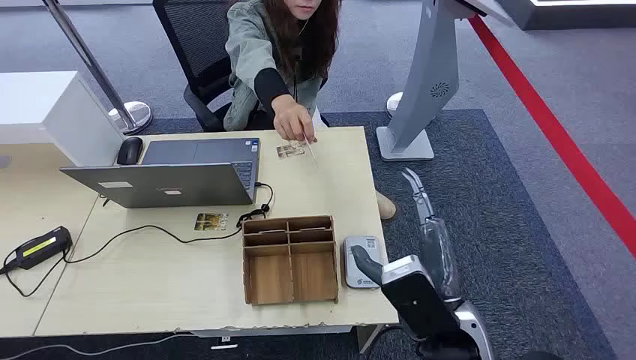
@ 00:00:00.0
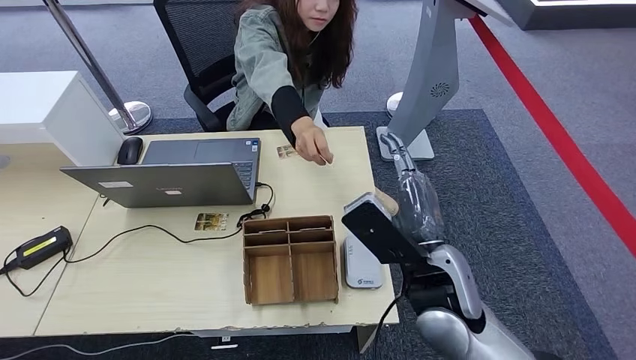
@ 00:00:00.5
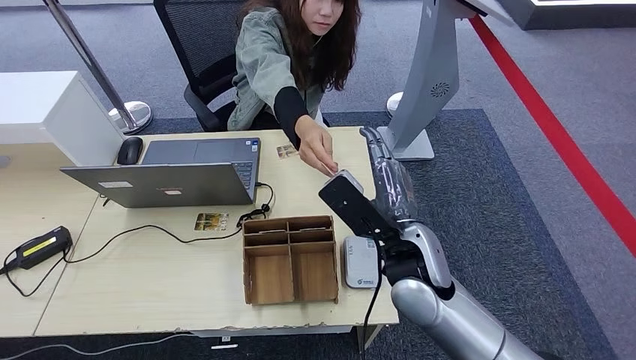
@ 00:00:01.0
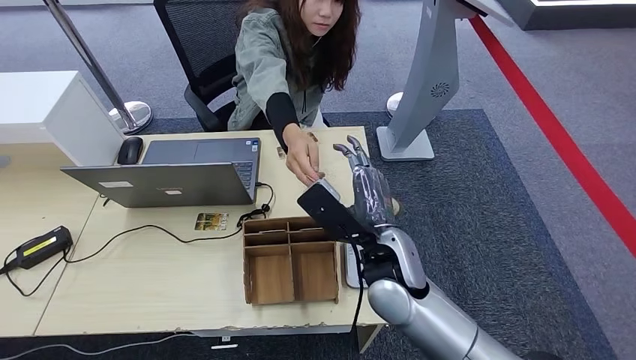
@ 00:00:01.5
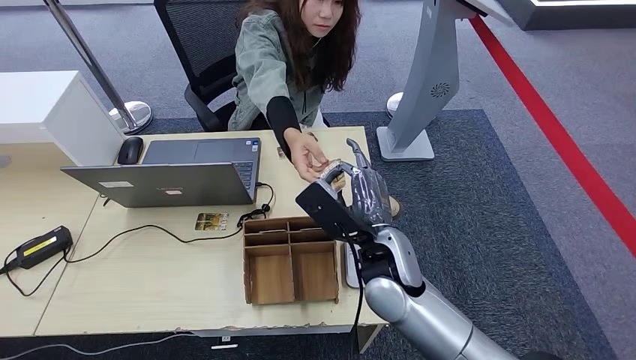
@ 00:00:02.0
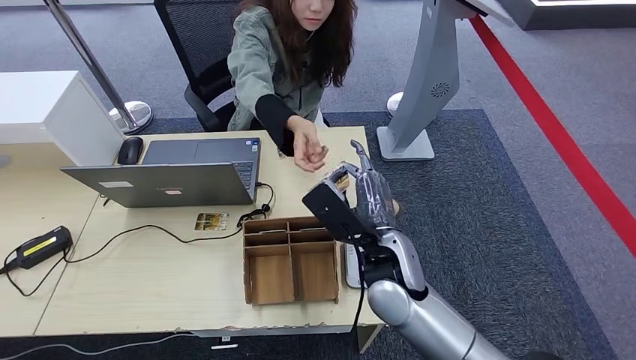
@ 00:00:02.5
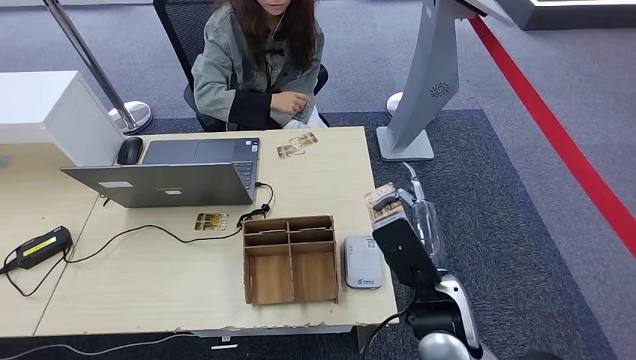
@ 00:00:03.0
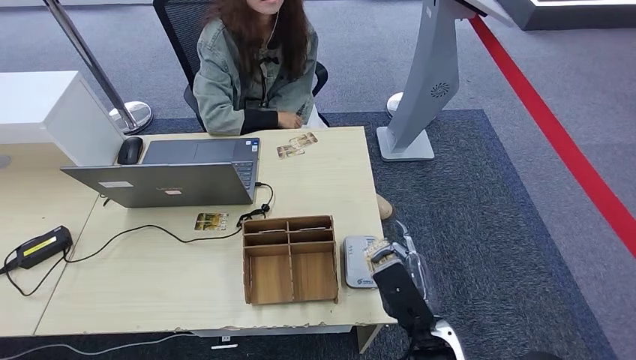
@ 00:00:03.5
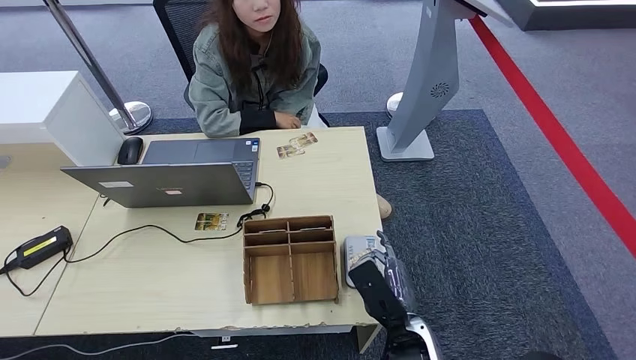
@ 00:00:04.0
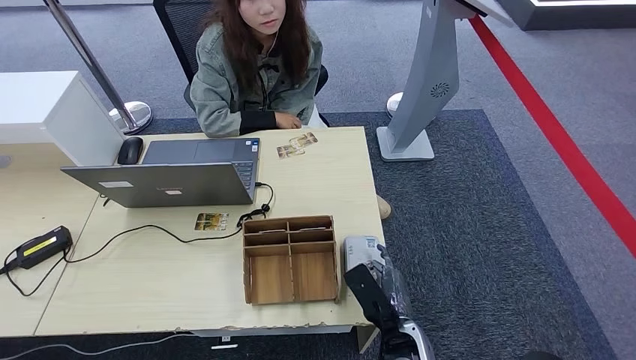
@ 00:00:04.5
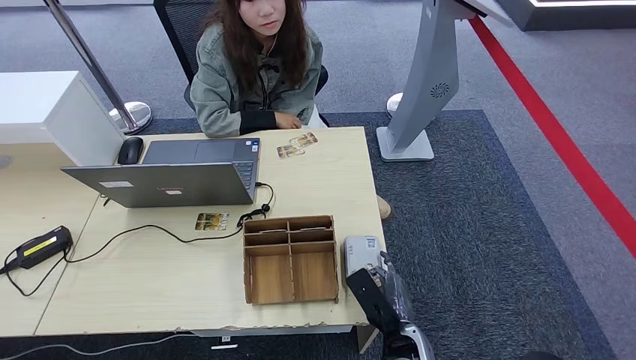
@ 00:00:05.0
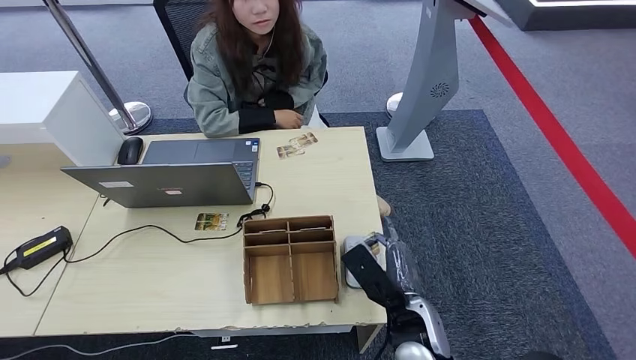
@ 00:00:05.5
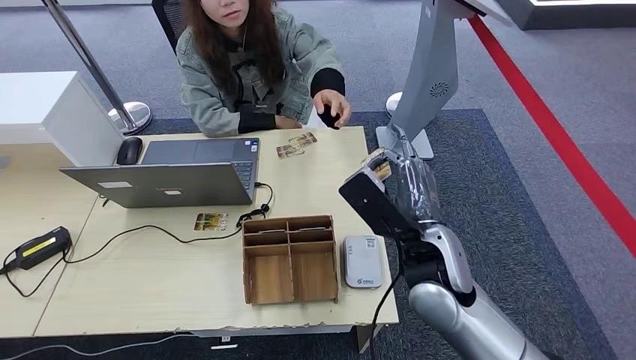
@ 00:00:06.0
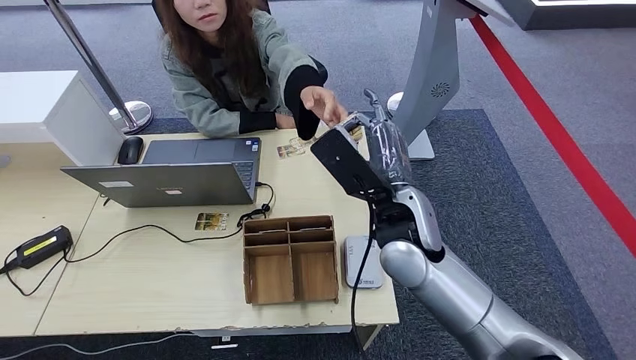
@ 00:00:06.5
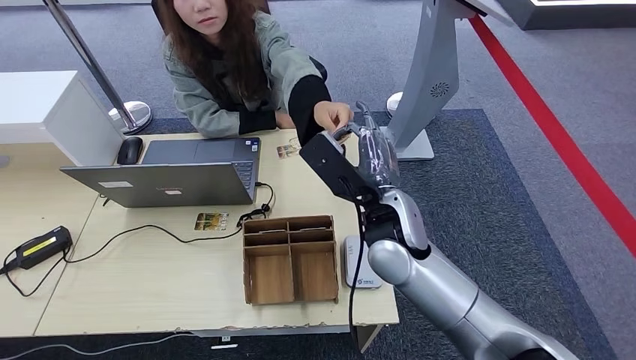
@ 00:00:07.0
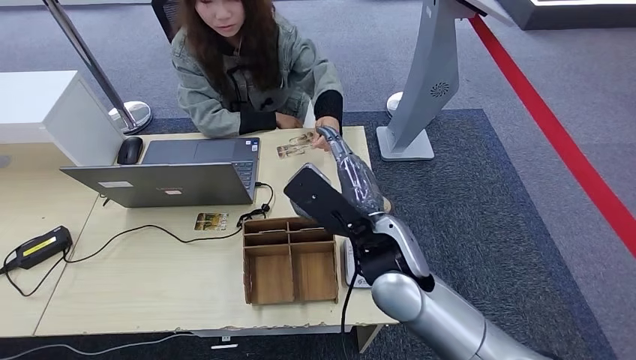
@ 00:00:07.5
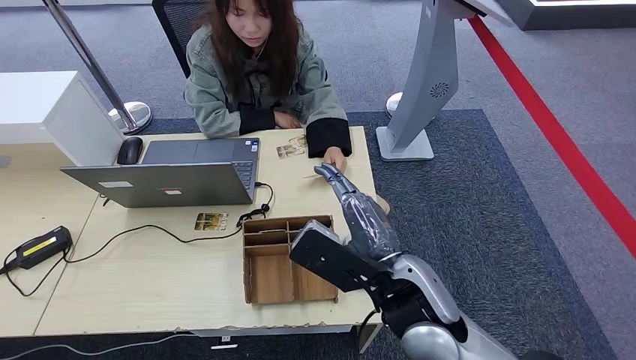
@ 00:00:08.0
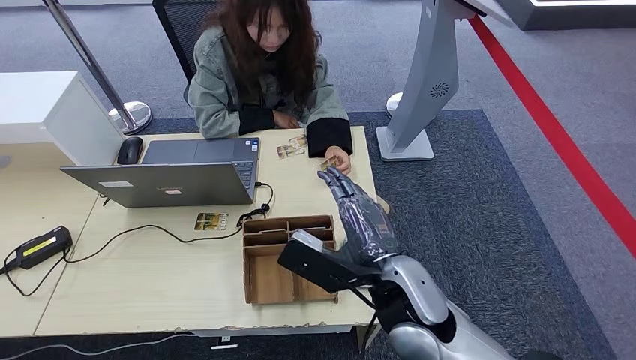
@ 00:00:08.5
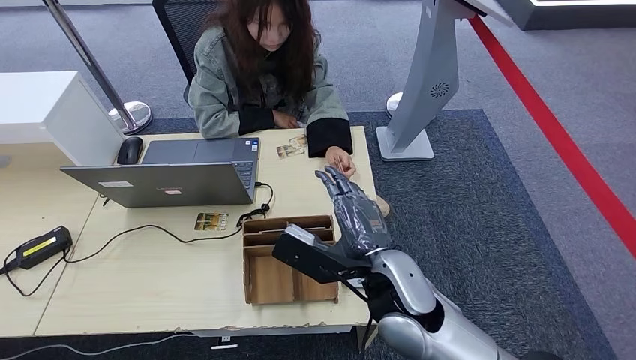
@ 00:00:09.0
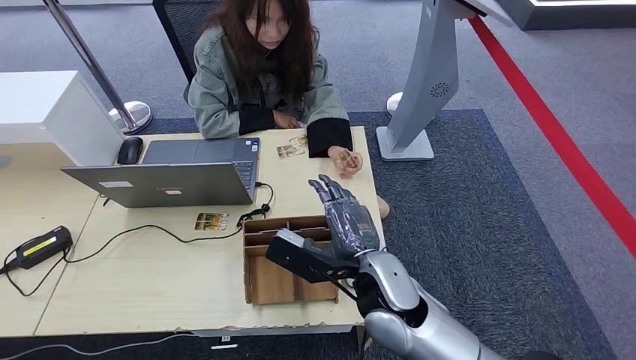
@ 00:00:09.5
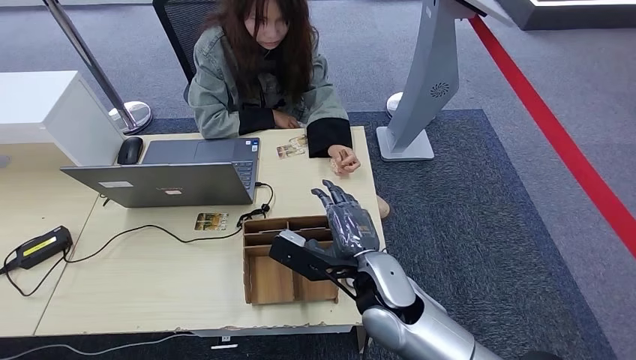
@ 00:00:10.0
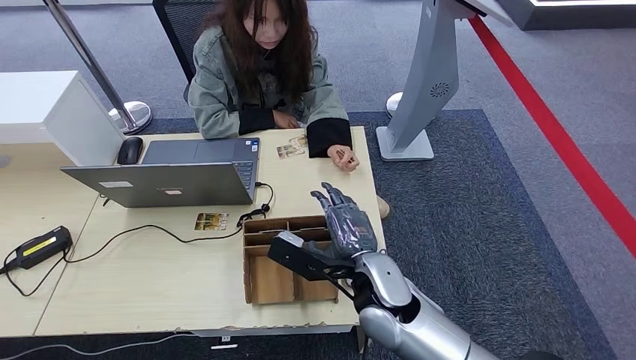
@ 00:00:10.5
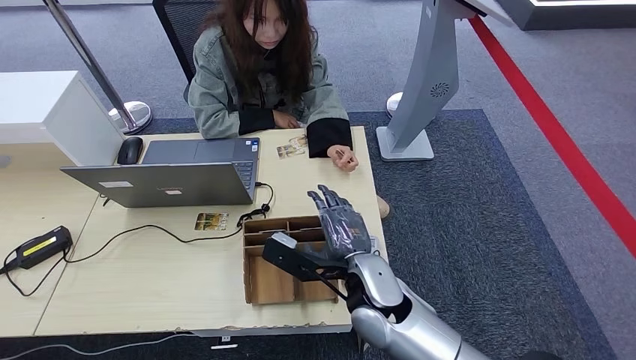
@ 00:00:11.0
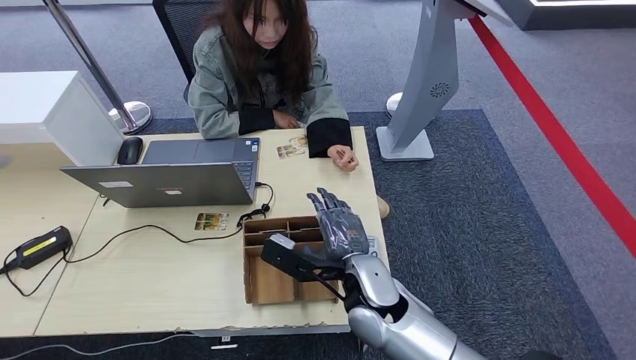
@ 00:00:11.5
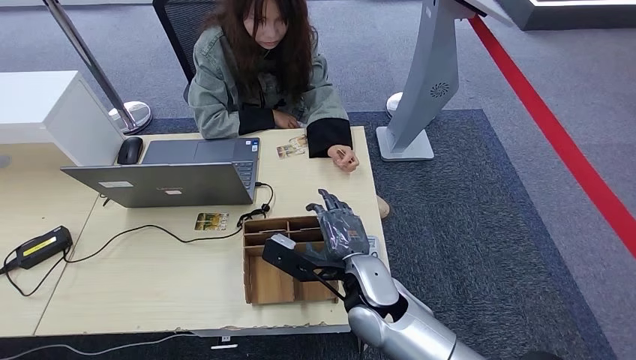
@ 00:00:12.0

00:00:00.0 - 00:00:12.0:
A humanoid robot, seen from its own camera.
Step, 00:00:00.0 - 00:00:02.0: Take the ID card from the person's hand.
Step, 00:00:02.5 - 00:00:05.5: Place the ID card on the card reader.
Step, 00:00:06.0 - 00:00:07.5: Hand the ID card to the person.
00:00:02.0 - 00:00:04.0: The right hand is displaced downward, backward and to the right by about 20 cm.
00:00:04.0 - 00:00:06.0: The right hand moves upward and forward, roughly 20 cm.
00:00:06.0 - 00:00:08.0: The right hand changes place by some 5 cm.
00:00:08.0 - 00:00:10.0: The right hand heads downward, covering about 10 cm.
00:00:10.0 - 00:00:12.0: The hands make only small movements.

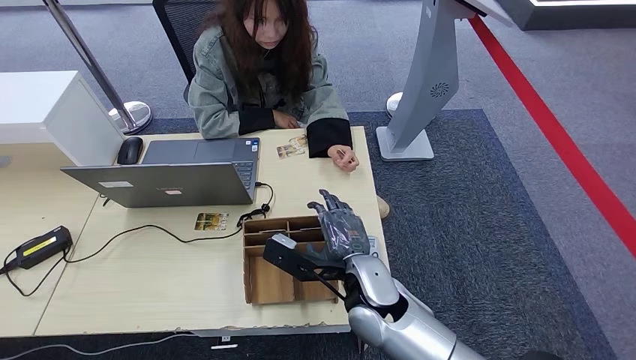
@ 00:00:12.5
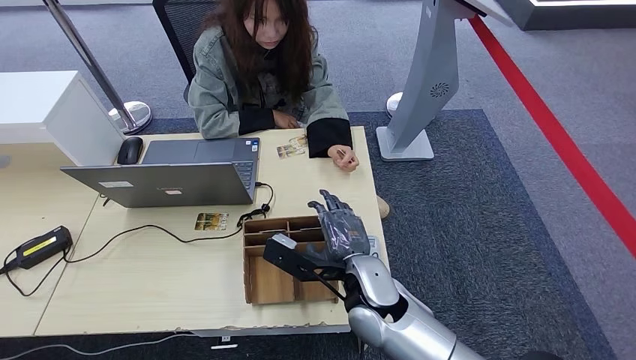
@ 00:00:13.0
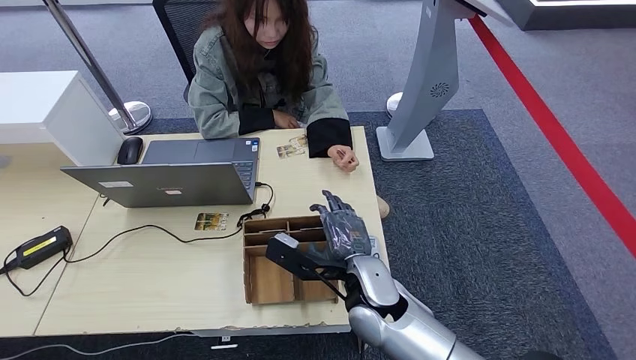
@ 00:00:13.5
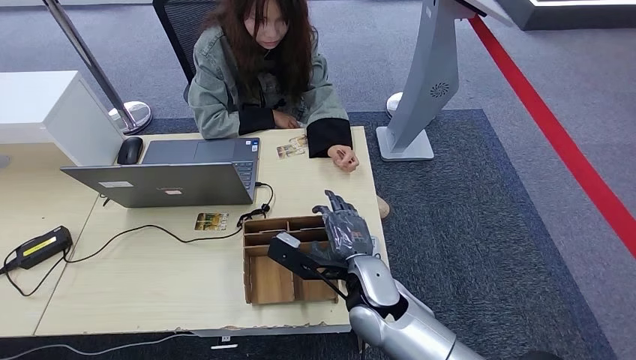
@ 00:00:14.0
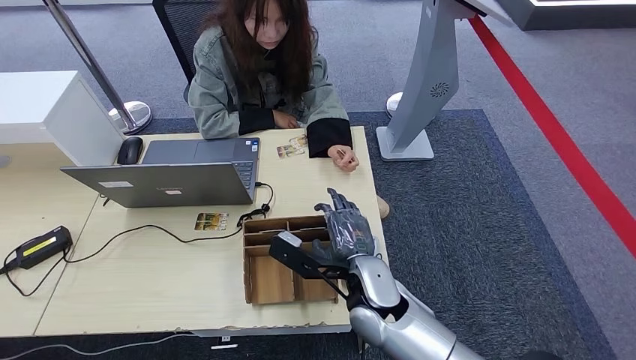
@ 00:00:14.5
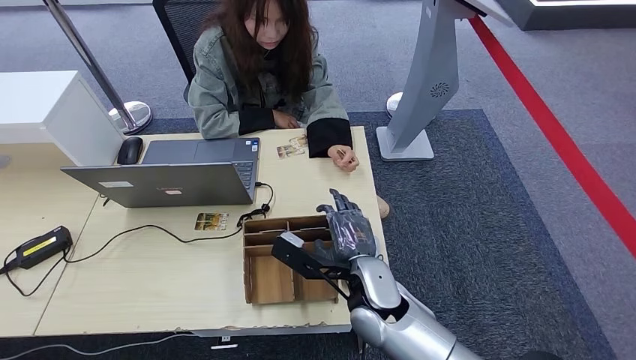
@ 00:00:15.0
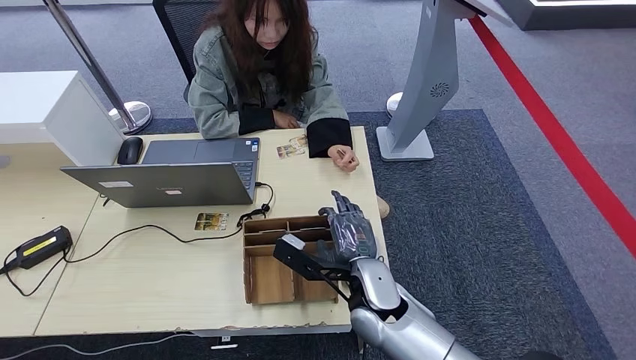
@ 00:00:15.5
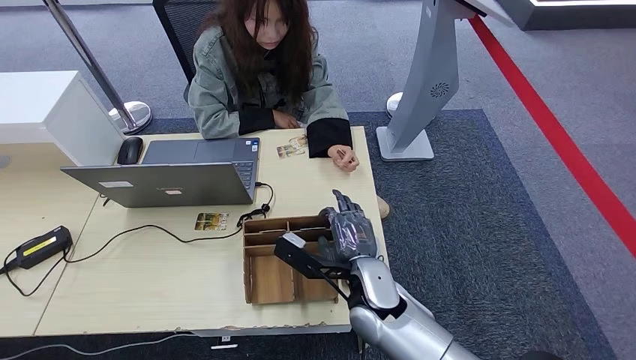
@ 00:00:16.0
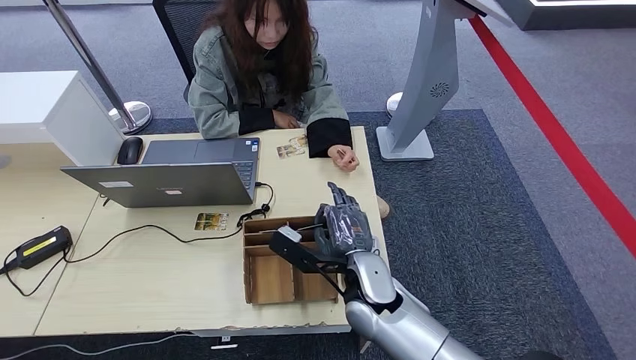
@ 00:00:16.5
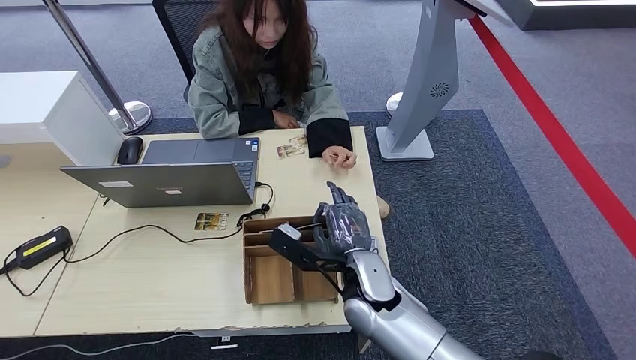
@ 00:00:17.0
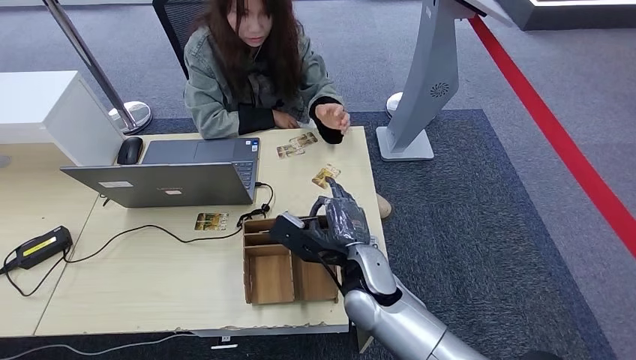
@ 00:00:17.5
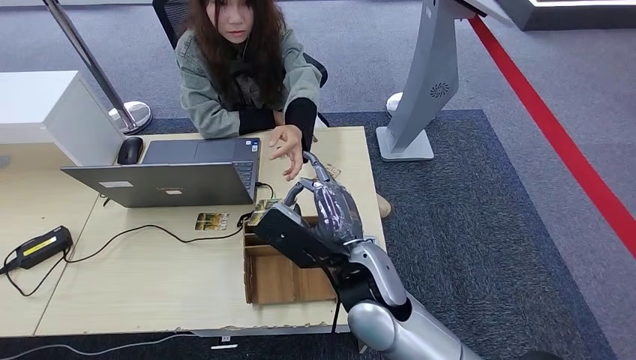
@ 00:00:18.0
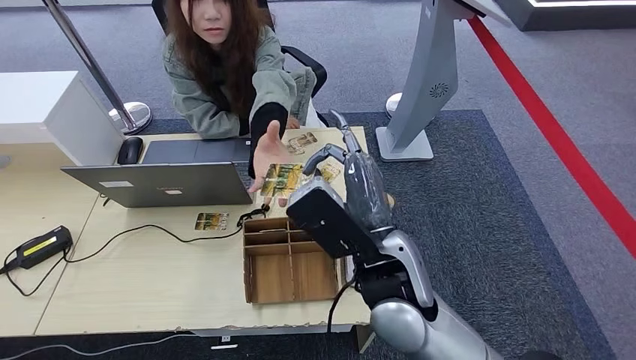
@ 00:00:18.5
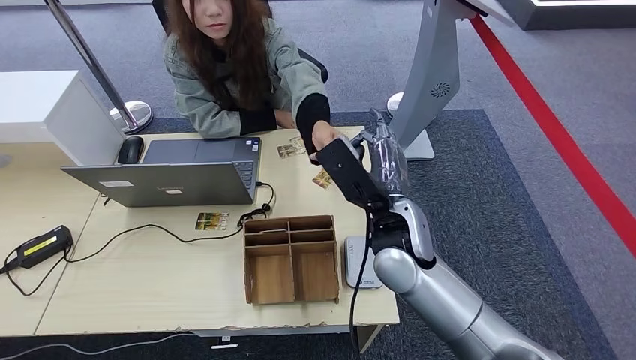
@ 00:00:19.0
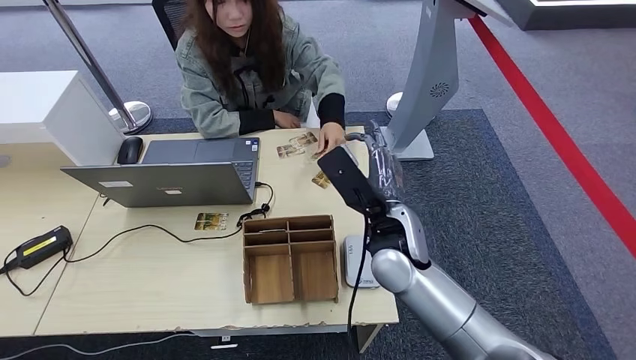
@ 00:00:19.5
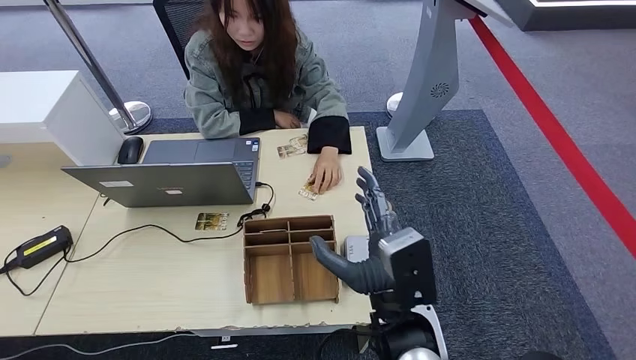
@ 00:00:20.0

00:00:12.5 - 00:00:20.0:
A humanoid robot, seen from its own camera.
Step, 00:00:12.5 - 00:00:17.0: Pick up the room key from the key card box.
Step, 00:00:17.5 - 00:00:20.0: Hand the room key to the person.
00:00:12.5 - 00:00:14.5: The two hands keep their place.
00:00:14.5 - 00:00:16.5: The hands move only a little.
00:00:16.5 - 00:00:18.0: The right hand travels upward by approximately 10 cm.
00:00:18.0 - 00:00:20.0: The right hand goes some 5 cm backward.
